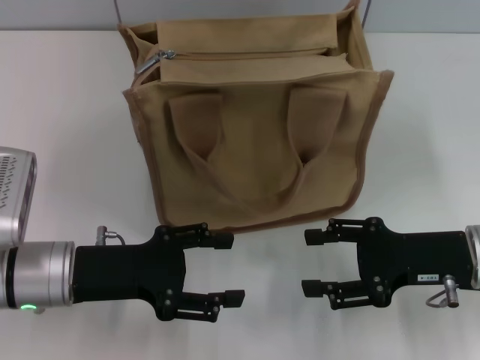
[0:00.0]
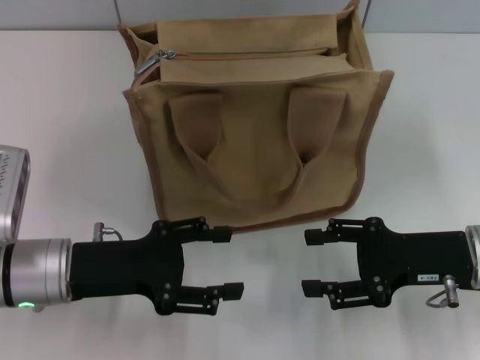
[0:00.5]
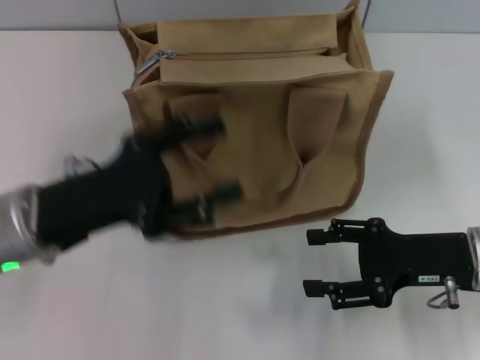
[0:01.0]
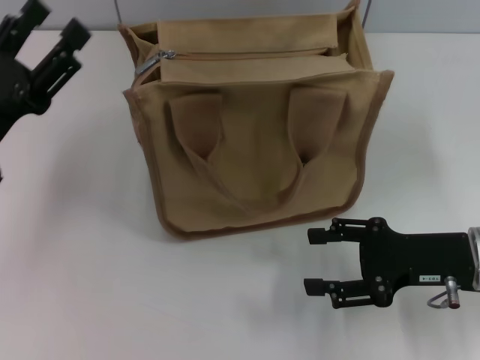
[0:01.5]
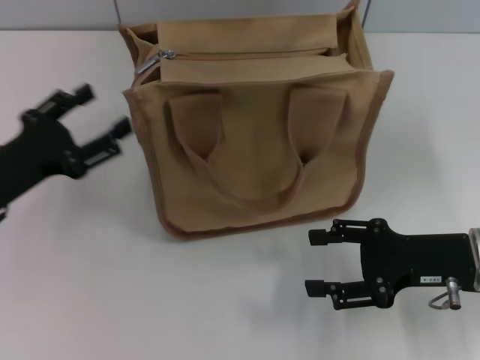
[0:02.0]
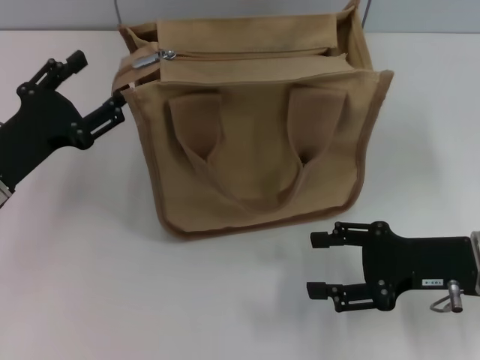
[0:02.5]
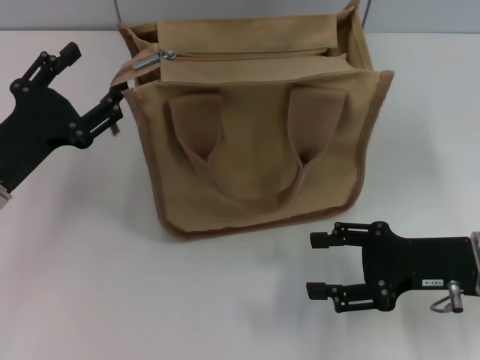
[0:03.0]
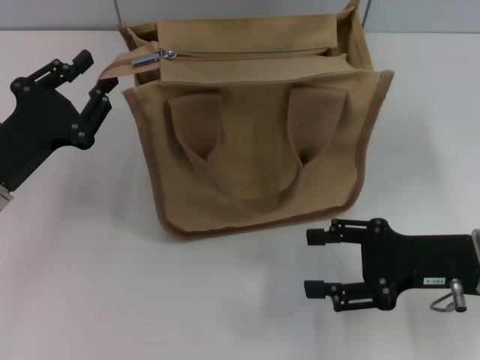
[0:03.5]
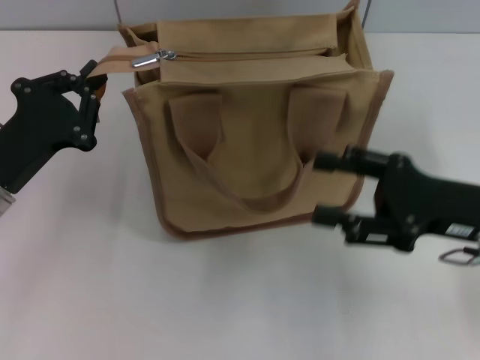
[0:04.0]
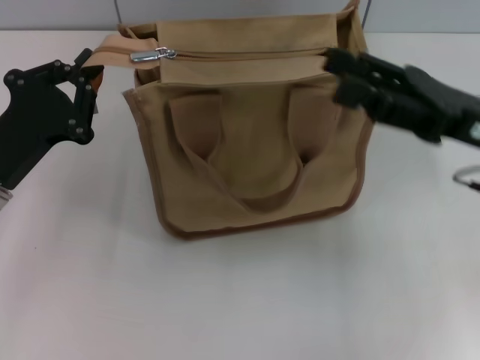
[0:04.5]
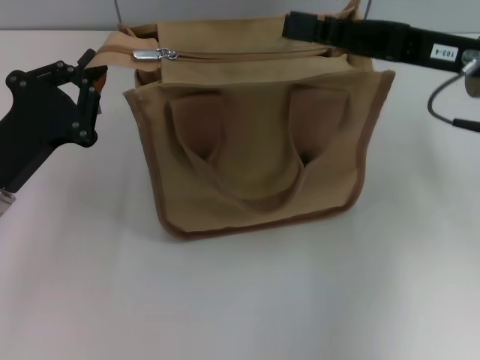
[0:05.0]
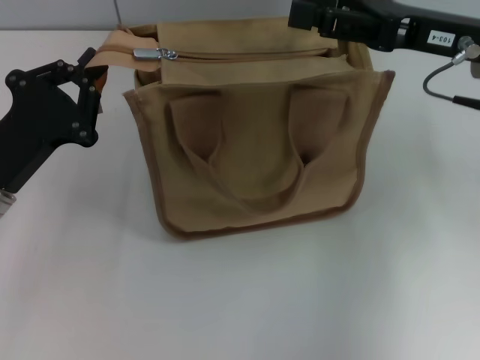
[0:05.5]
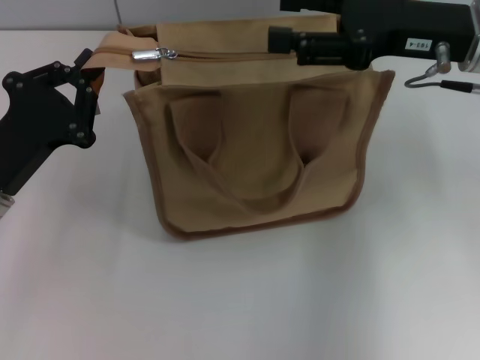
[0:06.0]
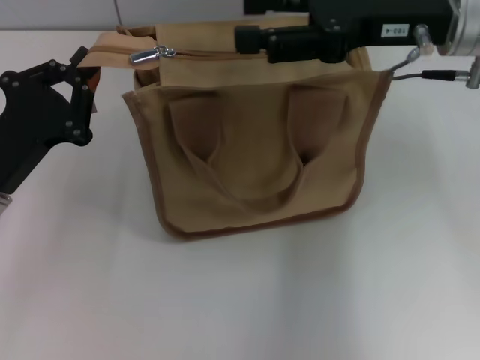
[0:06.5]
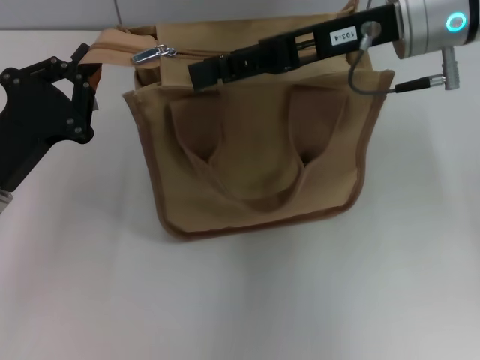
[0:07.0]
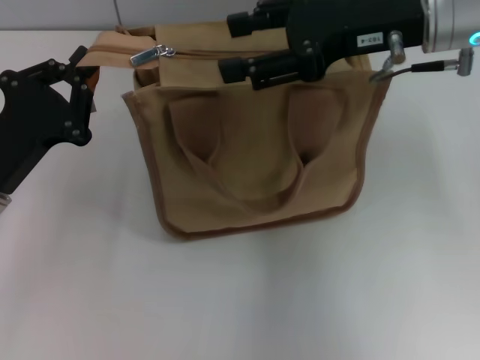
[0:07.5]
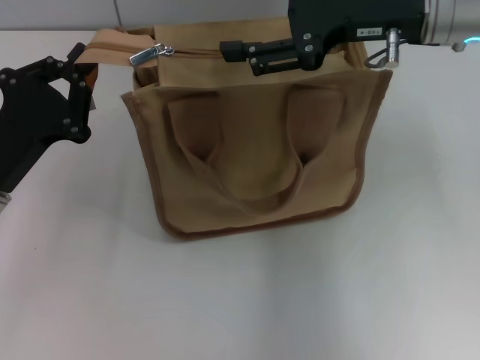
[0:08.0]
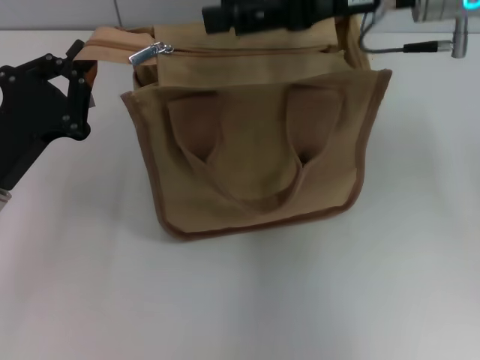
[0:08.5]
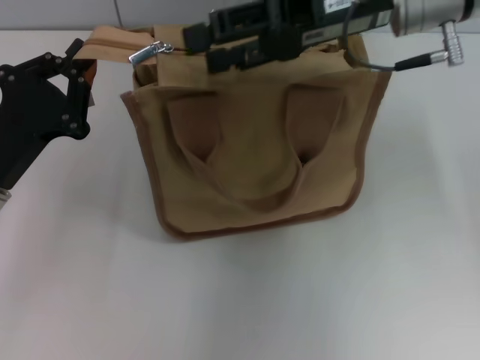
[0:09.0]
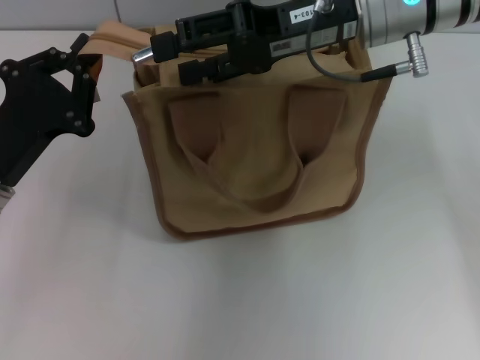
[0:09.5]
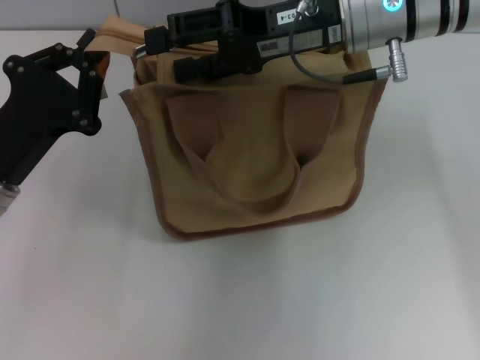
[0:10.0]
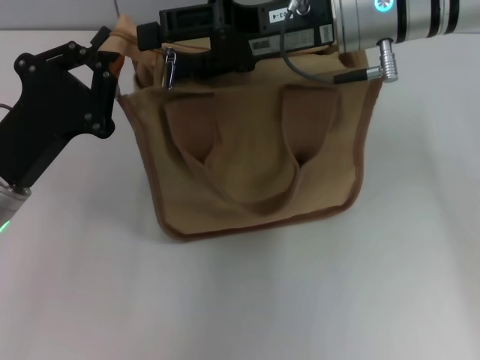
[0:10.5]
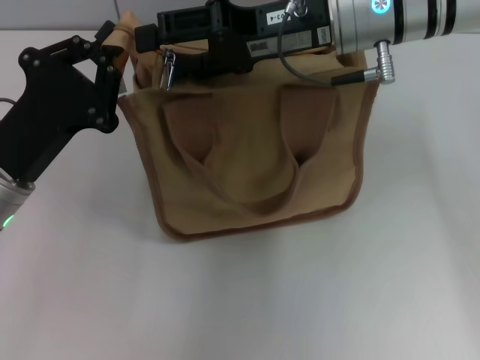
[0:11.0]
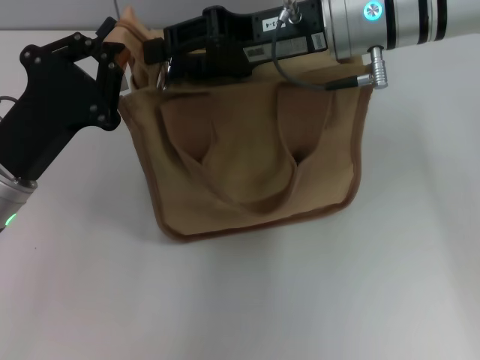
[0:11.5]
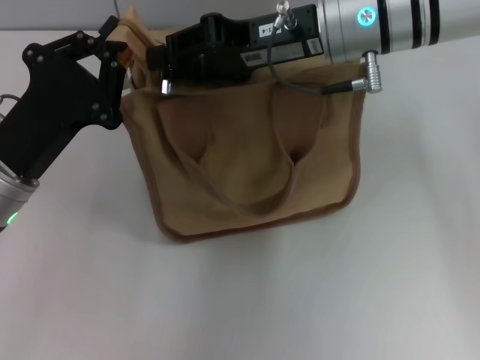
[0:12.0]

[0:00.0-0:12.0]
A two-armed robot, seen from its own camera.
0.0 to 2.0 s: The left gripper shifts approximately 10 cm to the left.
2.0 to 4.0 s: The left gripper closes up.
4.0 to 6.0 s: The right gripper shifts some 15 cm forward and upward.
6.0 to 8.0 s: The right gripper shifts by approximately 5 cm.
8.0 to 10.0 s: The right gripper is displaced to the left by roughly 5 cm.
10.0 to 12.0 s: The right gripper closes up.

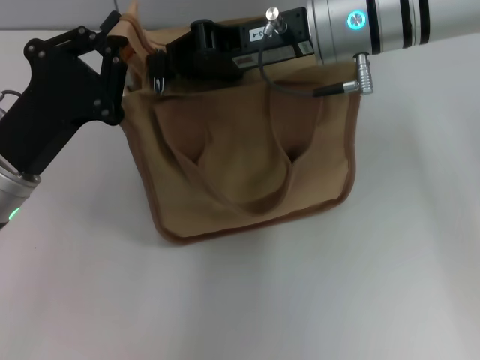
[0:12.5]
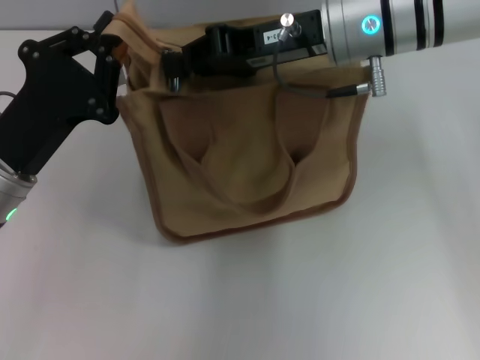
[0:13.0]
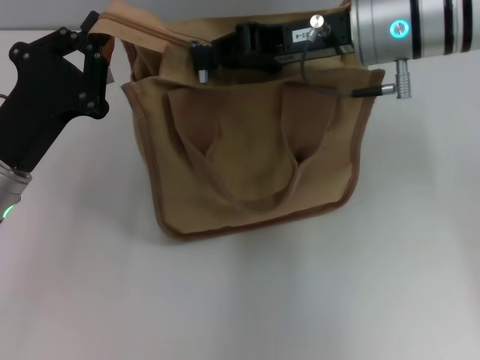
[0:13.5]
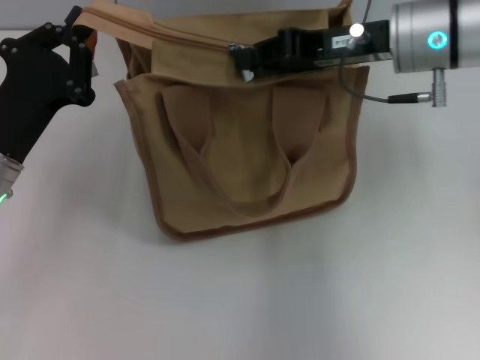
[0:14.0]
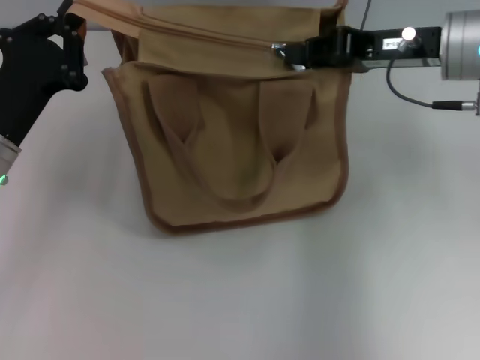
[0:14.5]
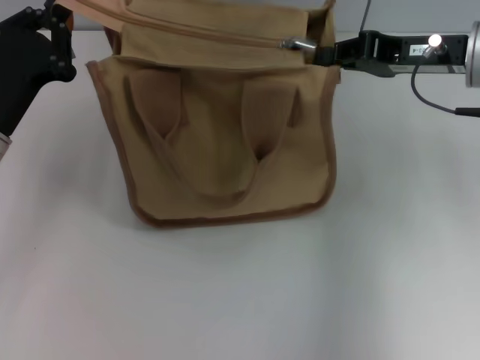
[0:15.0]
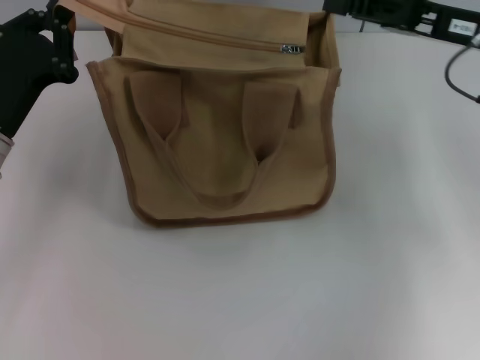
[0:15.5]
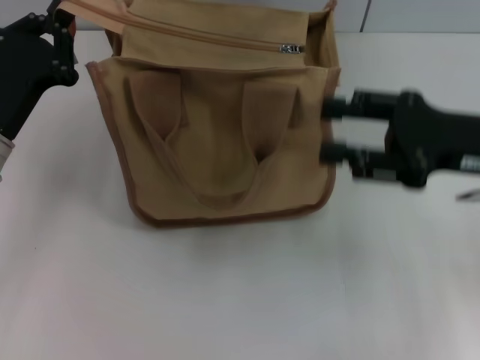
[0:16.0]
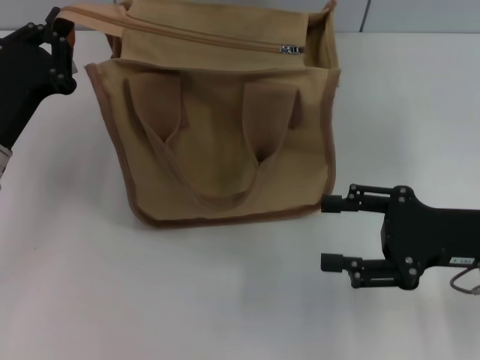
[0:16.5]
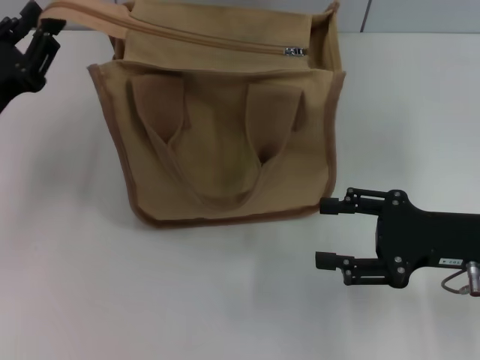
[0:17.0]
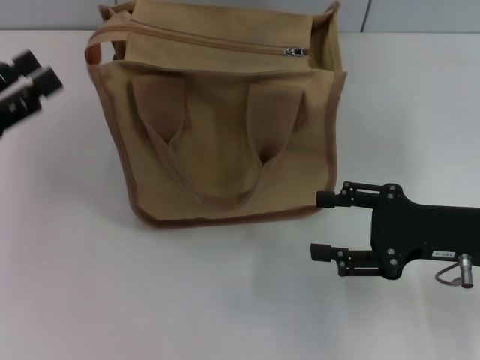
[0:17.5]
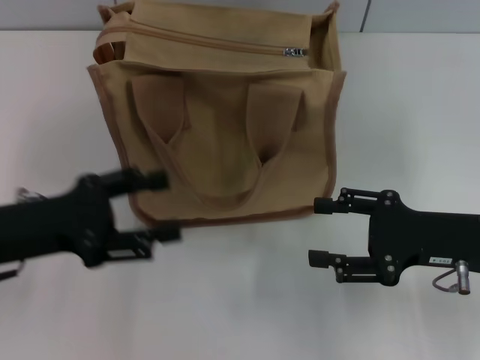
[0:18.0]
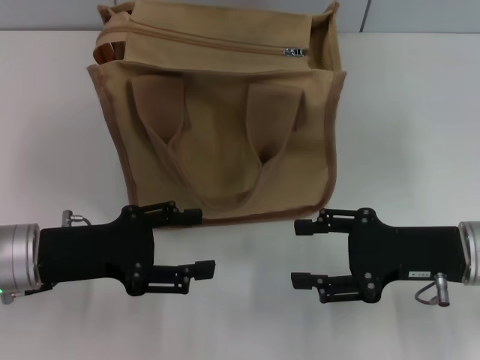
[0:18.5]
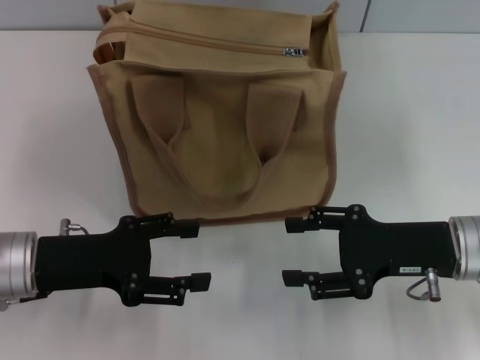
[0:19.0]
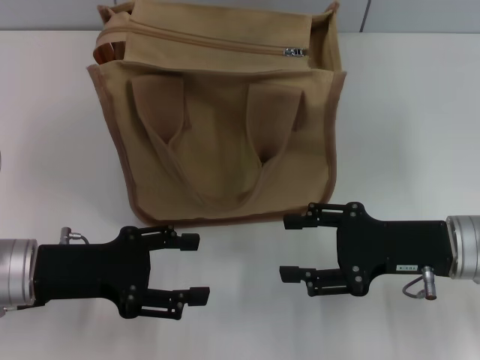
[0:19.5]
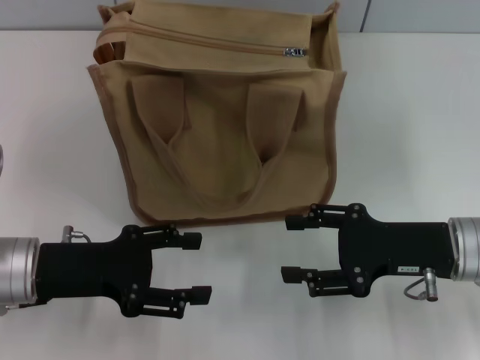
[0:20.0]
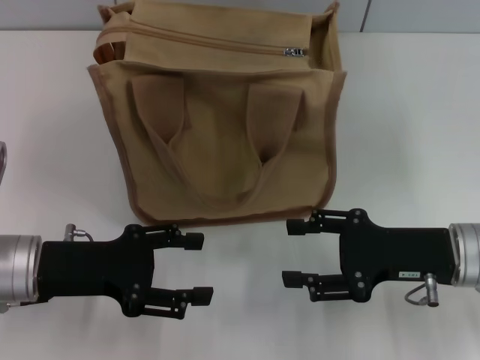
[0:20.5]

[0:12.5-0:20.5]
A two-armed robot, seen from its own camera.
Step, 12.5 to 15.0 s: Pull up the zipper with your right hand.
Step, 15.5 to 17.0 s: Grab the zipper with your left hand.
12.5 to 14.5 s: The right gripper goes about 10 cm to the right.
14.5 to 16.5 s: The right gripper travels backward, downward and to the right by some 15 cm, and opens its fingers.
16.5 to 18.5 s: The left gripper goes about 5 cm backward, travels to the left and back again, approximately 5 cm each way, and opens up.
18.5 to 20.5 s: The grippers move only a little.

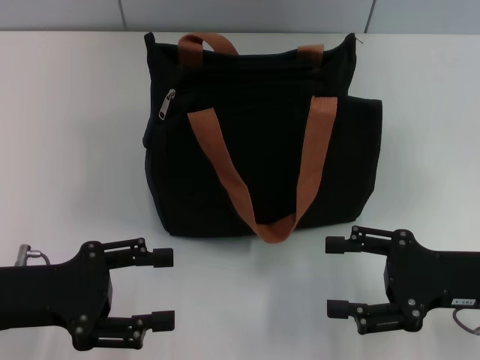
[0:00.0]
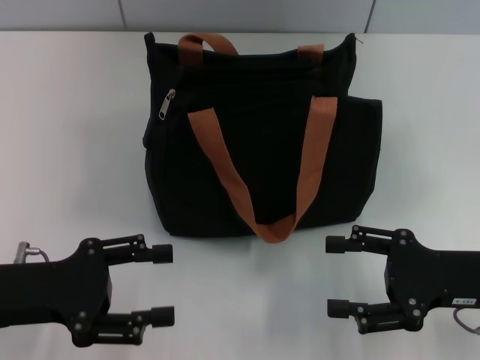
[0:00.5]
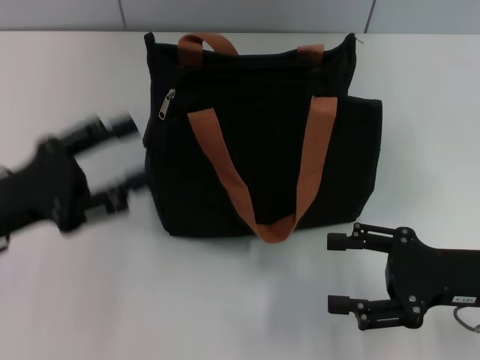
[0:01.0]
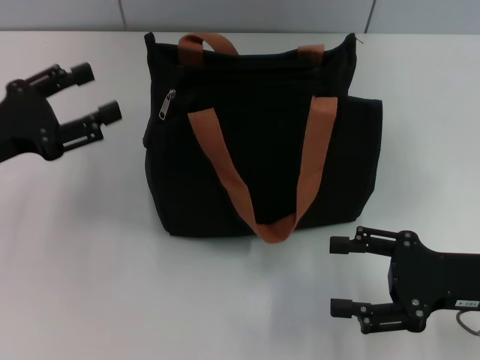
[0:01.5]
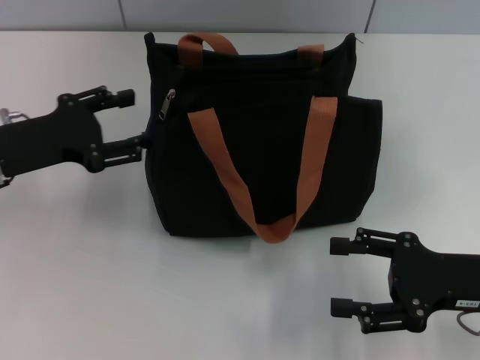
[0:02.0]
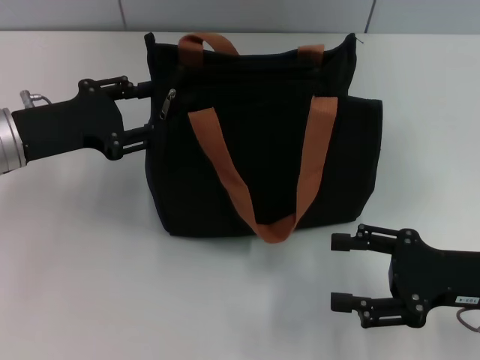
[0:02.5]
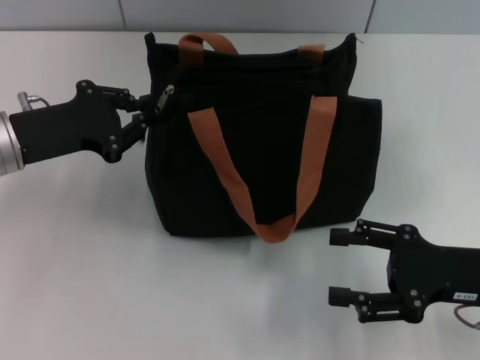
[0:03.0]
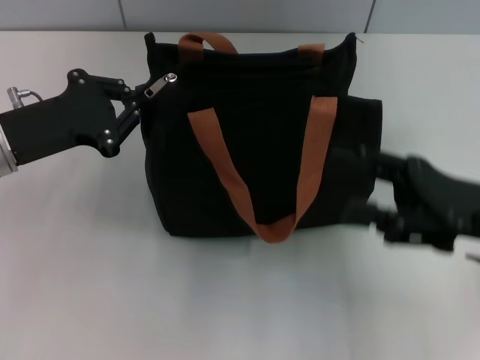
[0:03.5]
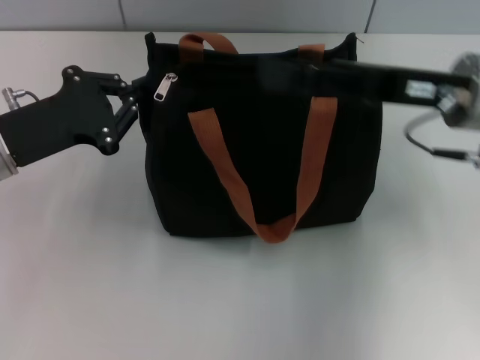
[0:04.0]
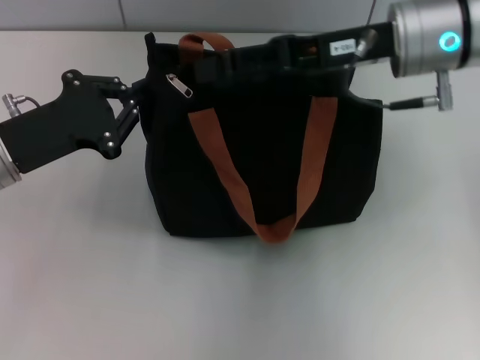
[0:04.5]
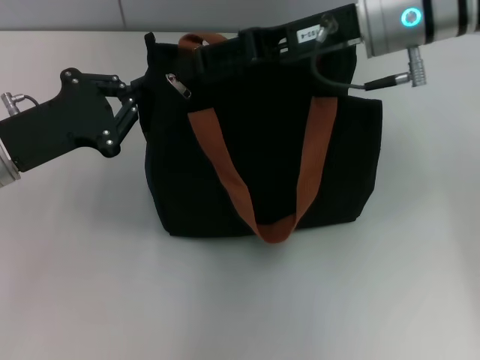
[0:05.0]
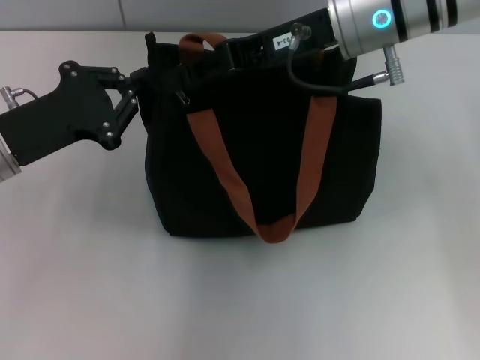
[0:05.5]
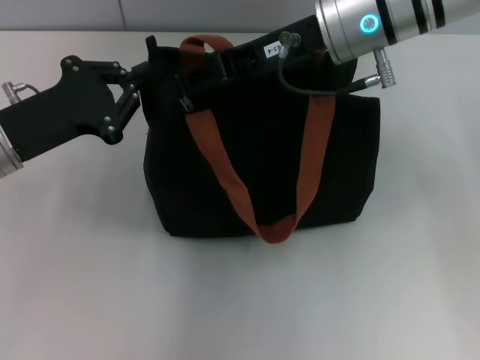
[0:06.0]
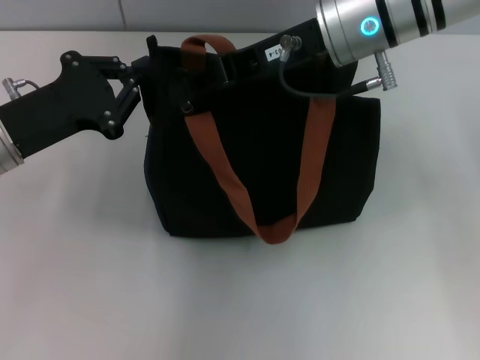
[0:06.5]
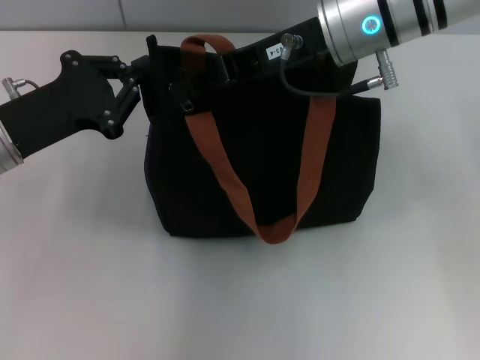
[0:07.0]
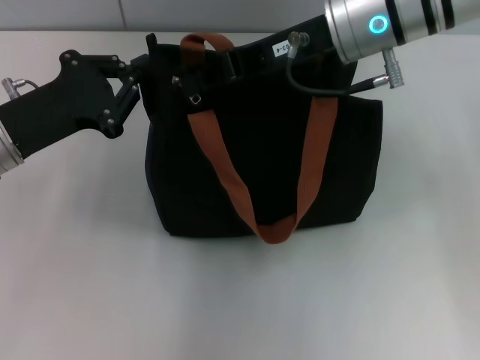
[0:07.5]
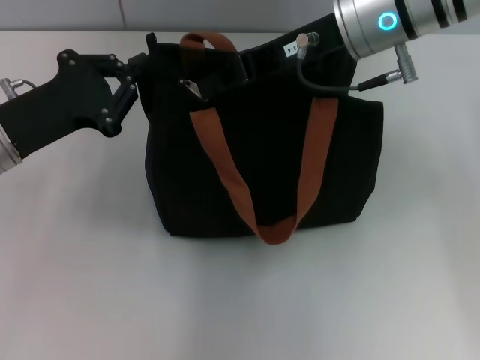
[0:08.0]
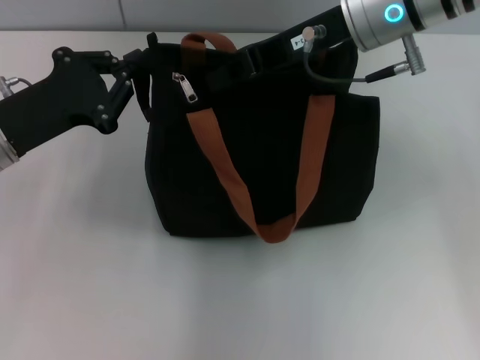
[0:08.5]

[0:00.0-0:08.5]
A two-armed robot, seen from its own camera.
0.0 to 2.0 s: The left gripper travels forward by approximately 10 cm.
2.0 to 4.0 s: The left gripper closes its fingers. Meanwhile the right gripper goes approximately 15 cm forward, upward and to the left.
4.0 to 6.5 s: The right gripper shifts approximately 10 cm to the left and forward, and closes.
6.5 to 8.5 s: There are only small adjustments of the grippers.
